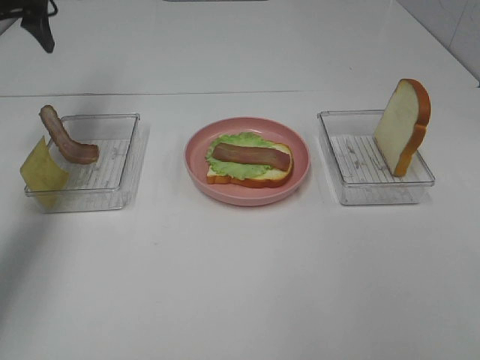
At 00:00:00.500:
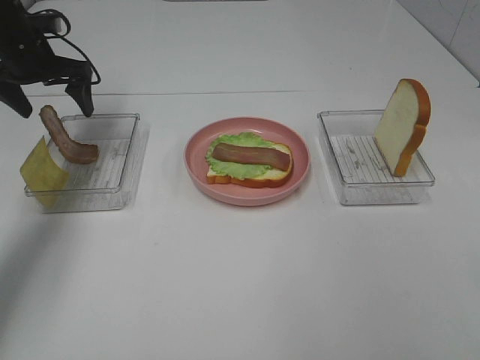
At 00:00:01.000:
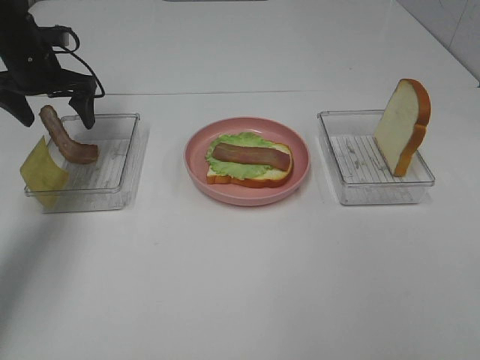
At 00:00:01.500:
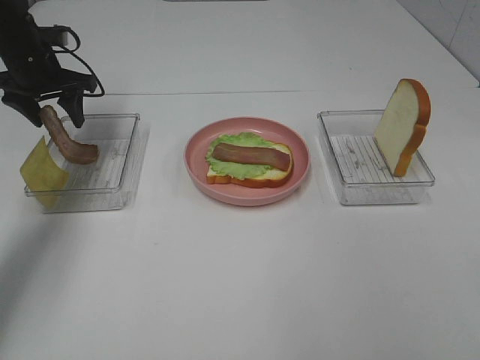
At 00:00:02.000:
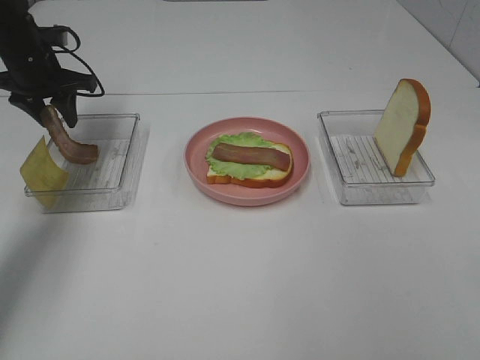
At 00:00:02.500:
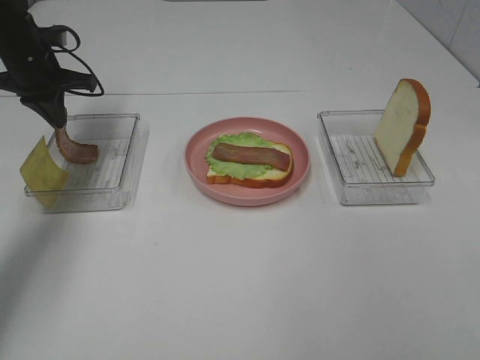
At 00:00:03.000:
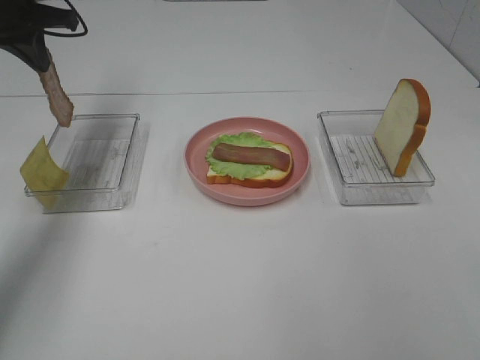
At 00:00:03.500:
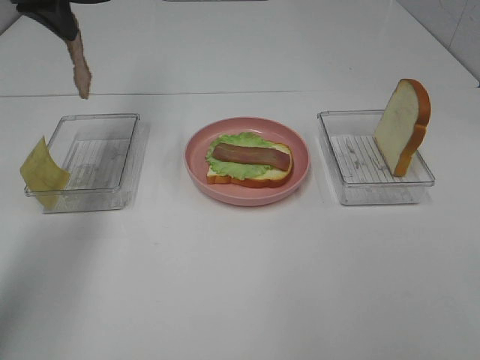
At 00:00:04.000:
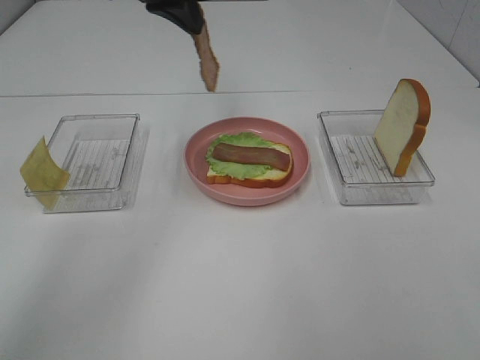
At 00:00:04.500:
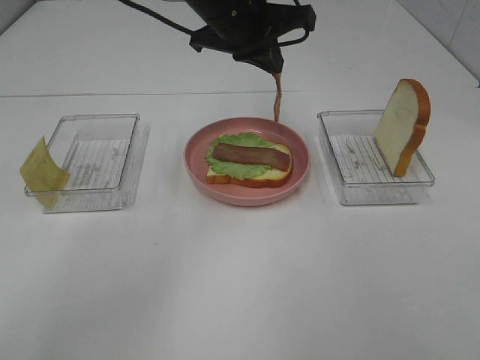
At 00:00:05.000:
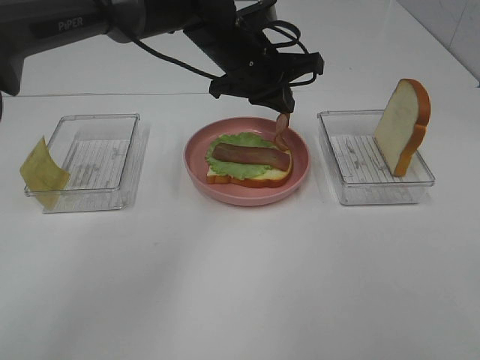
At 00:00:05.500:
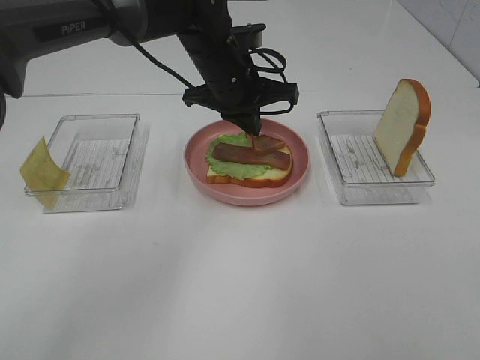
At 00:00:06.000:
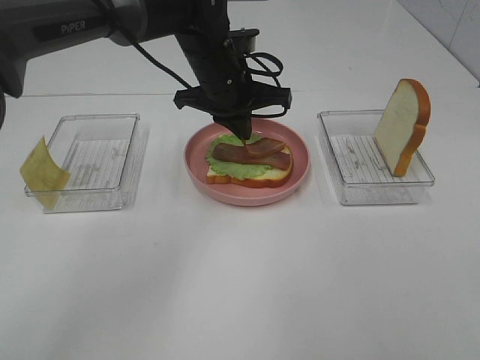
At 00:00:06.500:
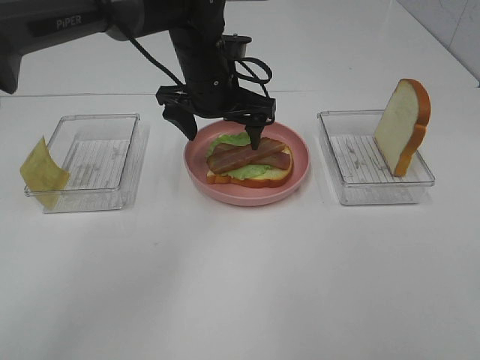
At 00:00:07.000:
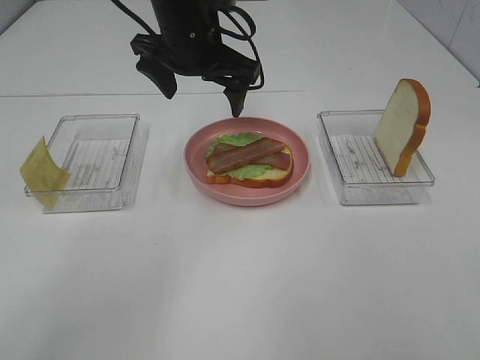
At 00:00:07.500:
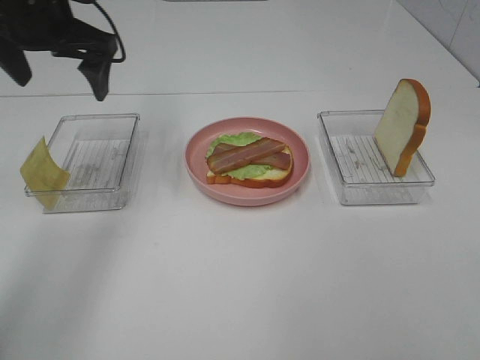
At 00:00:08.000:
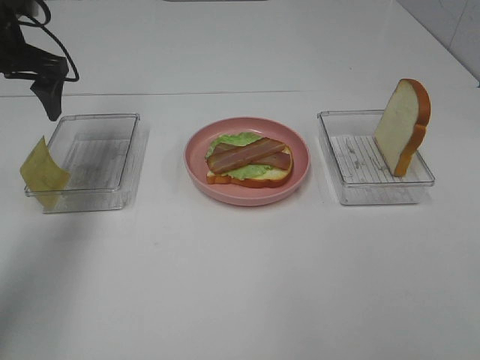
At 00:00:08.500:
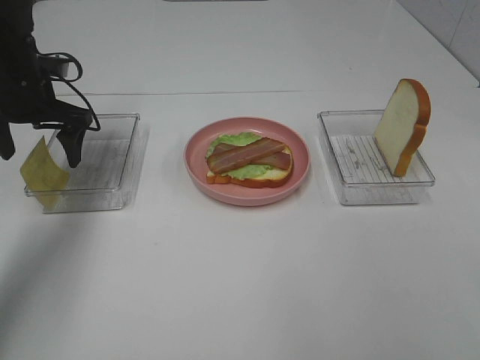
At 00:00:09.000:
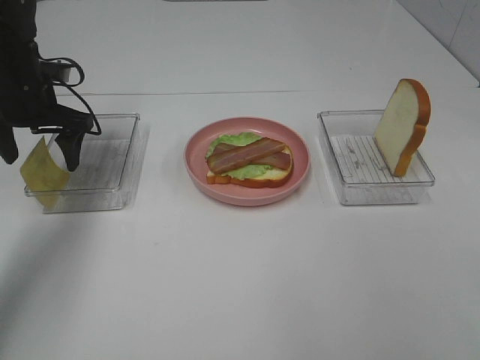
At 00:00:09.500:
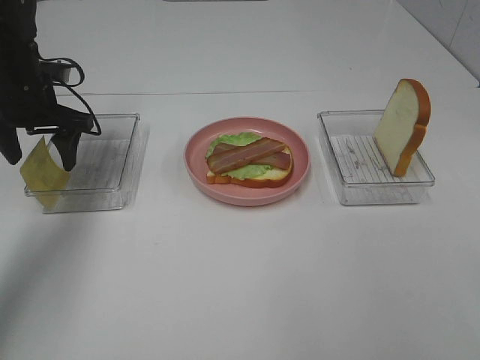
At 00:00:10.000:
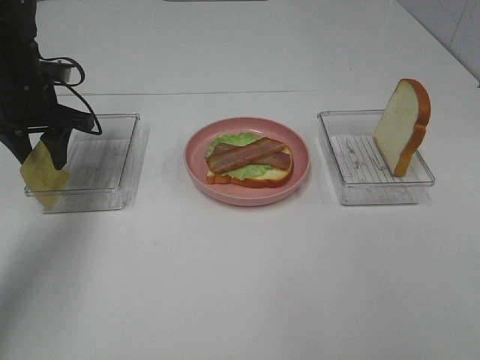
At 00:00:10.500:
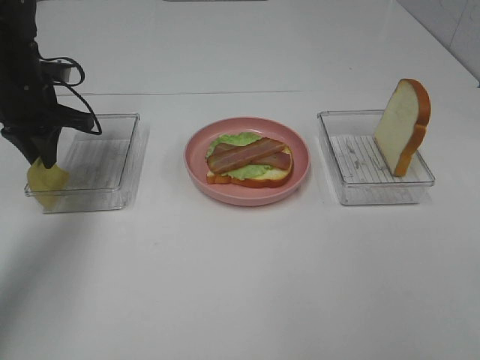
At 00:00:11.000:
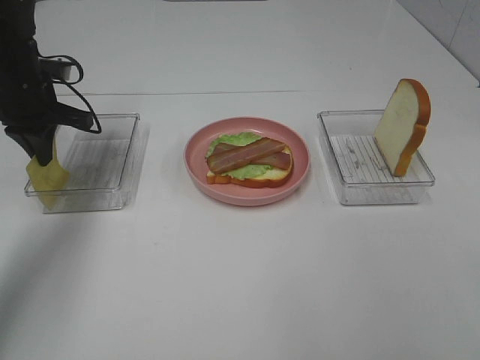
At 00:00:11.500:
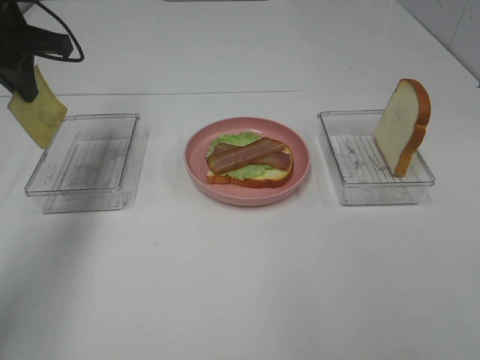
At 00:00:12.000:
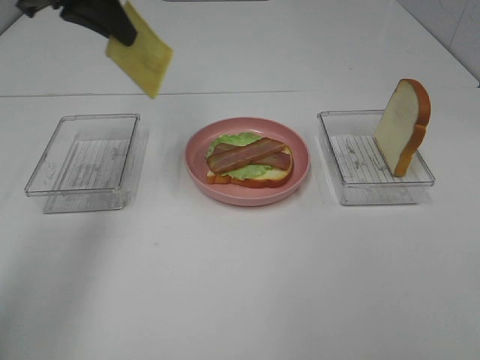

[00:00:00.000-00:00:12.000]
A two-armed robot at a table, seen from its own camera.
Task of the whole recording: Make sandwiches.
Step, 00:00:00.000 to 00:00:02.500: Left hand:grab the bacon.
Step, 00:00:03.000 to 00:00:06.500: Left hand:place bacon on bacon.
Step, 00:00:07.000 to 00:00:10.500: Left hand:grab the cheese slice.
00:00:00.000 to 00:00:02.000: The left gripper heads downward, covering some 10 cm, and closes.
00:00:02.000 to 00:00:04.000: The left gripper travels to the right and upward by some 25 cm, and closes.
00:00:04.000 to 00:00:06.000: The left gripper heads downward and to the right, covering roughly 15 cm.
00:00:06.000 to 00:00:08.000: The left gripper shifts some 25 cm to the left, and opens.
00:00:08.000 to 00:00:10.000: The left gripper shifts approximately 10 cm downward, and closes up.
00:00:10.000 to 00:00:12.000: The left gripper goes about 20 cm upward and to the right, and closes its fingers.

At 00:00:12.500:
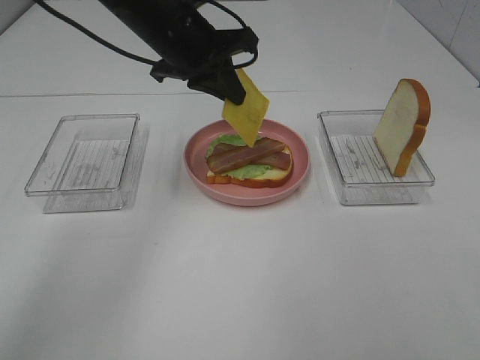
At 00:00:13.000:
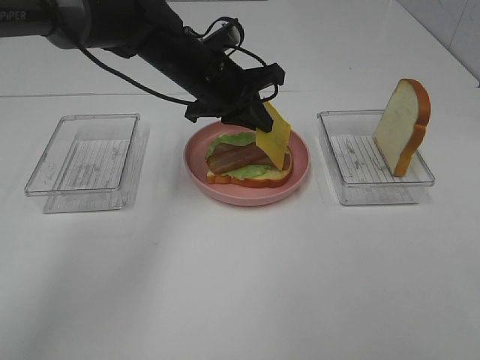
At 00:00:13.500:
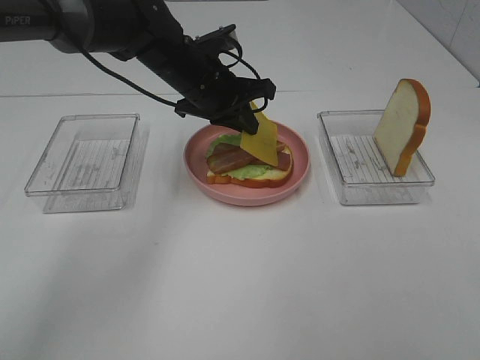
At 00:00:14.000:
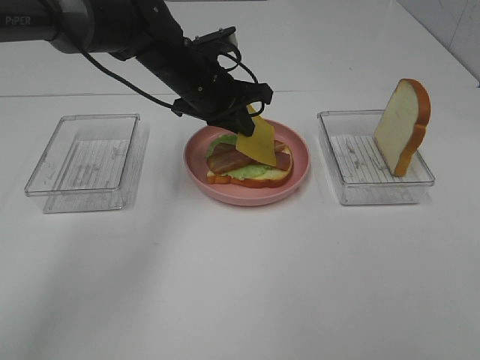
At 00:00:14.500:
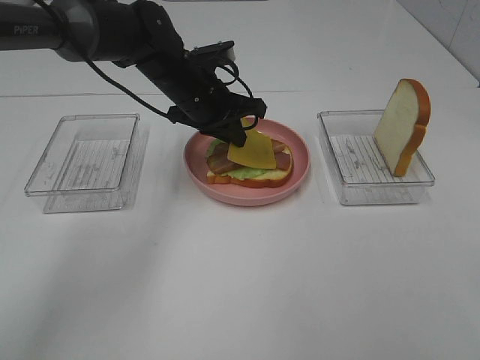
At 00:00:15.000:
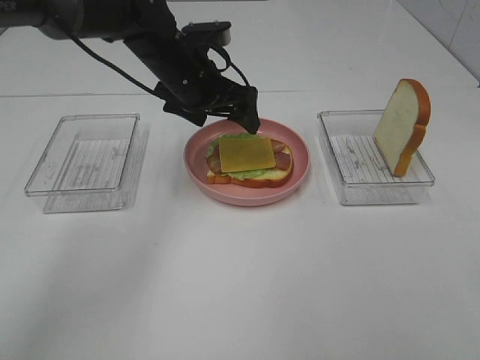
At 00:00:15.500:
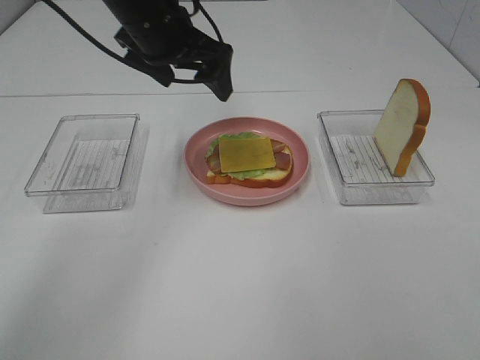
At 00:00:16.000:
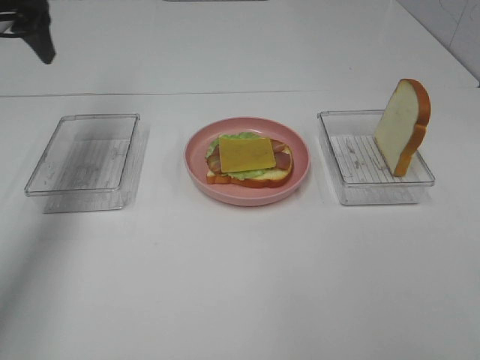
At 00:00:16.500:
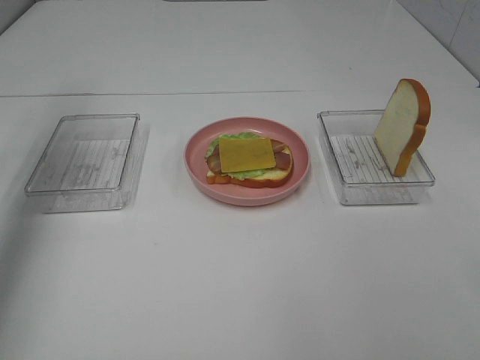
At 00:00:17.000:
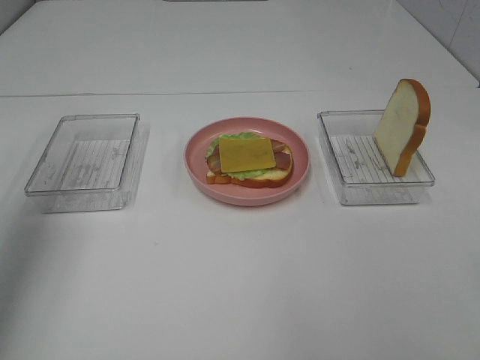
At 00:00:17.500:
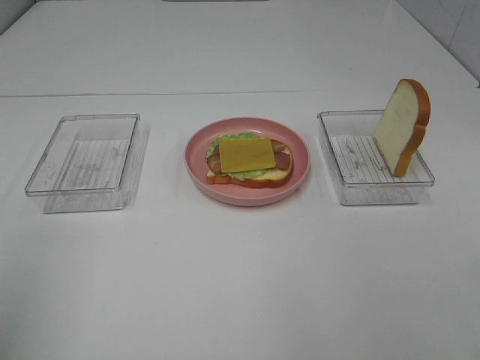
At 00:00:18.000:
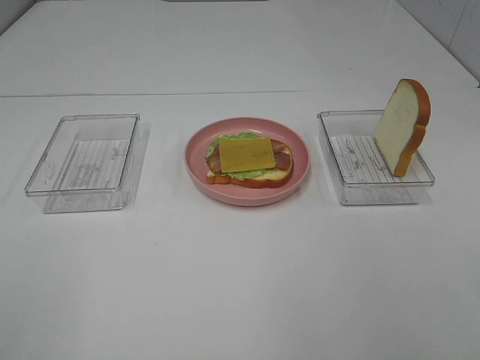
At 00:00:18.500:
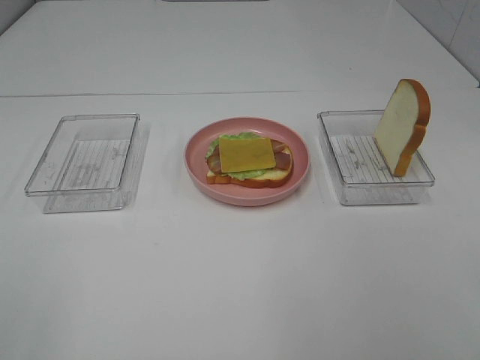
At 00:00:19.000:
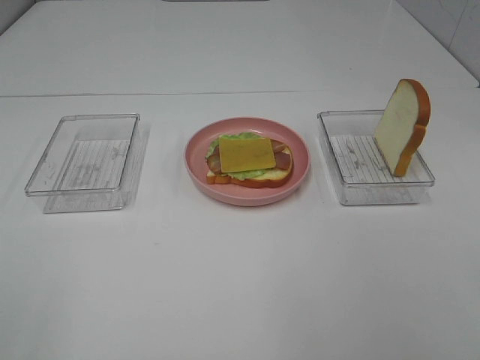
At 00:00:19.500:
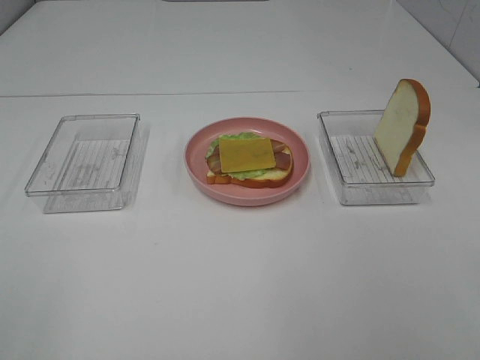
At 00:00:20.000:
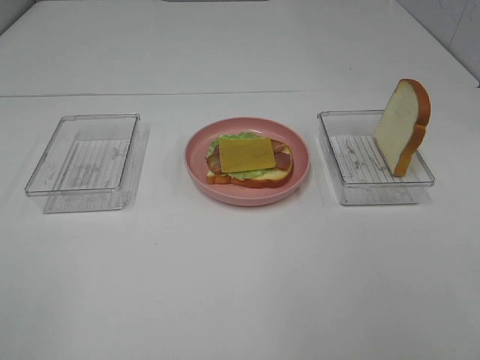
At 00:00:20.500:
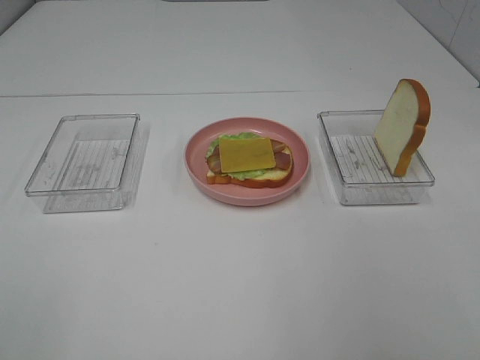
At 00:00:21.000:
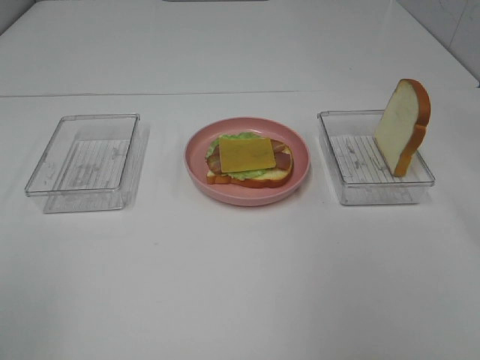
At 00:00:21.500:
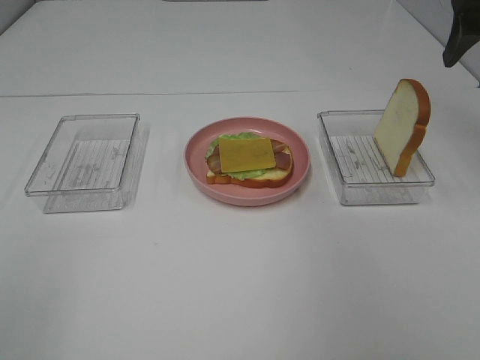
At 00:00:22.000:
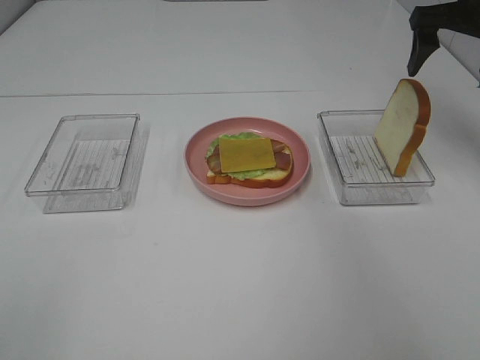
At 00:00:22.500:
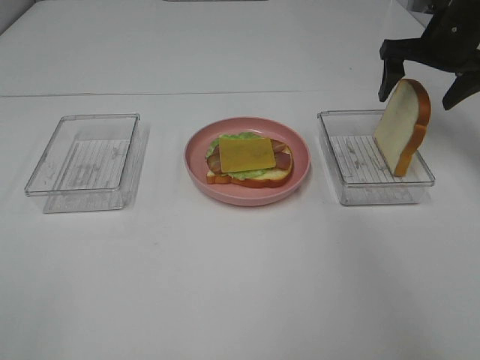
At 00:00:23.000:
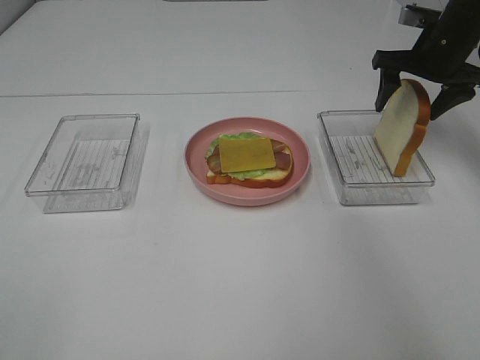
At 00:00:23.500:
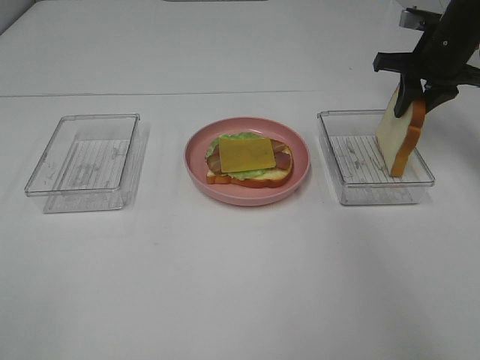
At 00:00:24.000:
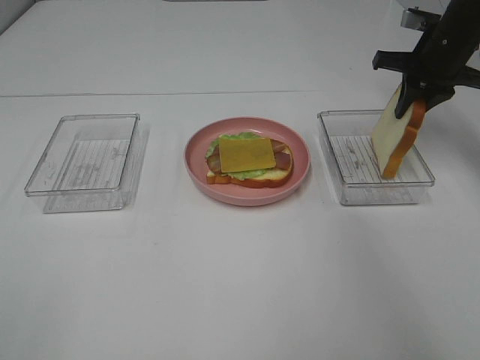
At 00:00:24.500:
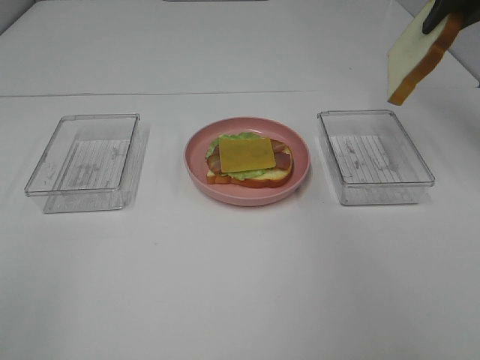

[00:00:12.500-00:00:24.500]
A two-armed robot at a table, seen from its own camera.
Task of the whole recording: Make sandwiches.
Step, 00:00:12.500 to 00:00:15.000: Left hand:place the cheese slice on top of the bacon.
Step, 00:00:15.500 to 00:00:23.500: Right hand:grab the bread slice.
00:00:12.500 to 00:00:14.500: The left gripper travels downward by about 10 cm.
00:00:14.500 to 00:00:16.500: The left gripper heads to the left and upward, covering roughly 35 cm, and opens.
00:00:16.500 to 00:00:18.500: The left gripper shifts some 40 cm backward.
00:00:20.500 to 00:00:22.500: The right gripper moves forward, about 40 cm.
00:00:22.500 to 00:00:24.500: The right gripper moves upward and backward, about 15 cm, and closes.

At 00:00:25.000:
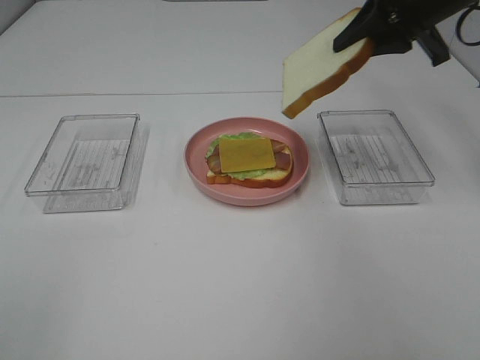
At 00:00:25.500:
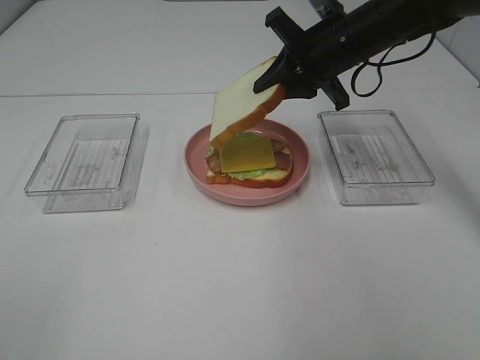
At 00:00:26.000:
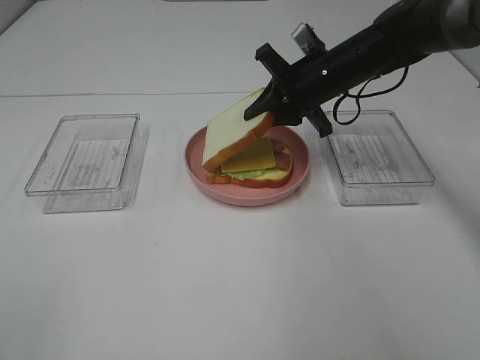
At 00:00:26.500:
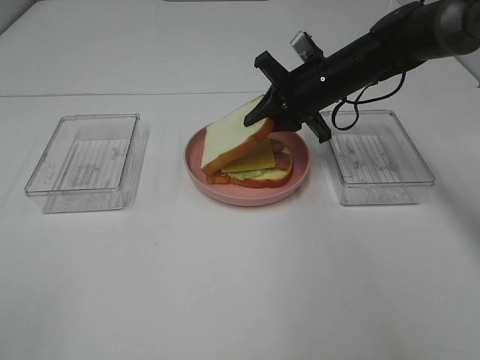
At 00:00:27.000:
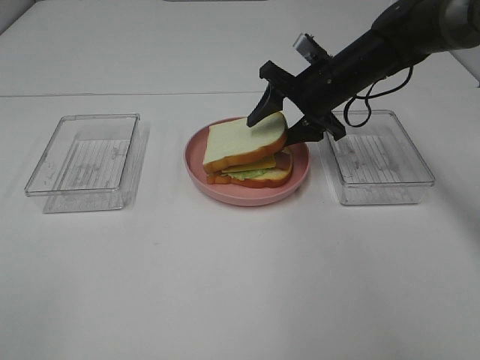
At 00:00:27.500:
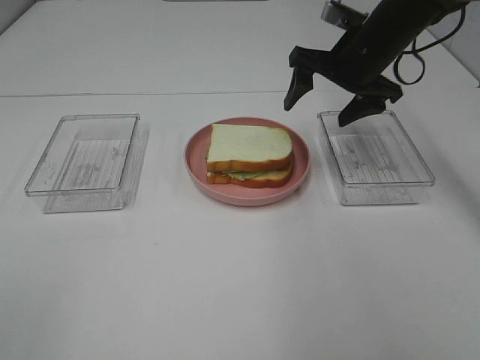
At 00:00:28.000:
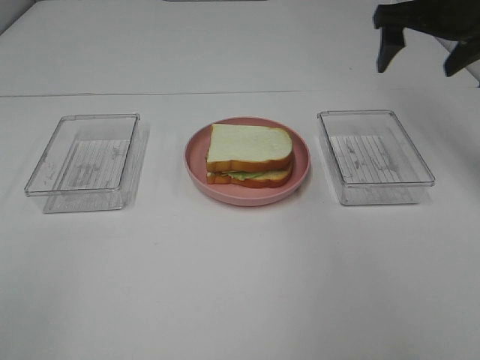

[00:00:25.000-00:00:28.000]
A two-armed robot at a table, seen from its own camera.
Task of the whole recording: Make sandwiches.
Step, 00:00:25.000 to 00:00:27.000: Right hand:place the bread slice on the cheese slice.
00:00:25.000 to 00:00:26.500: The right gripper goes some 15 cm downward and to the left.
00:00:26.500 to 00:00:28.000: The right gripper moves upward and to the right, about 20 cm, and opens its fingers.
